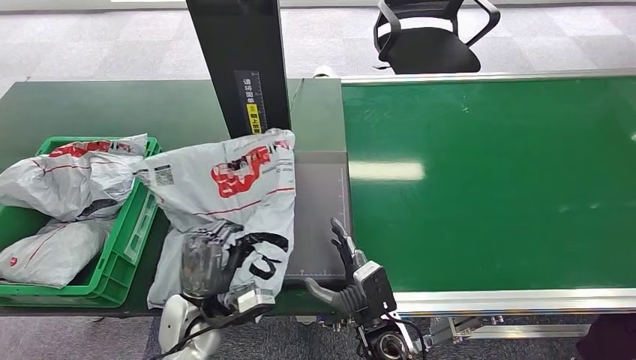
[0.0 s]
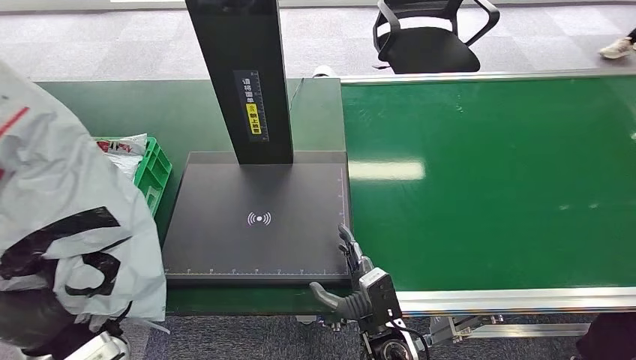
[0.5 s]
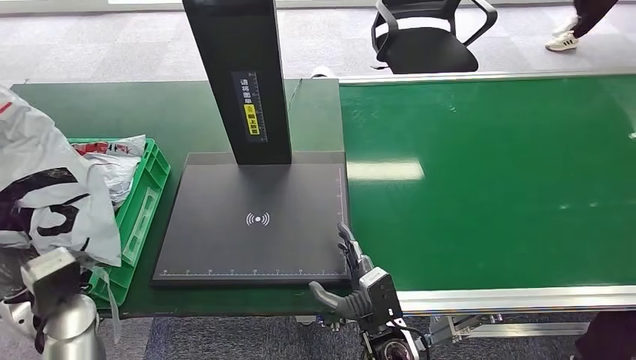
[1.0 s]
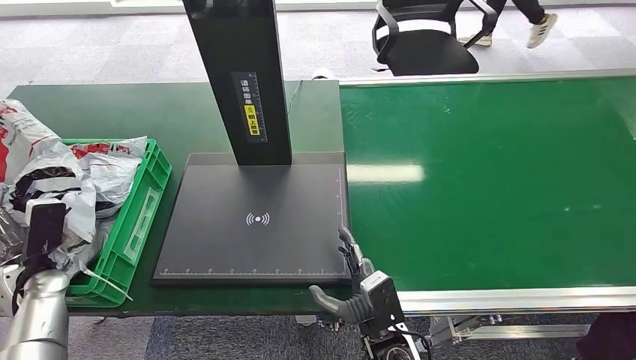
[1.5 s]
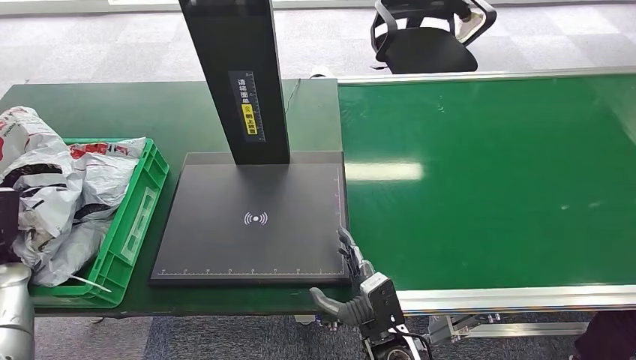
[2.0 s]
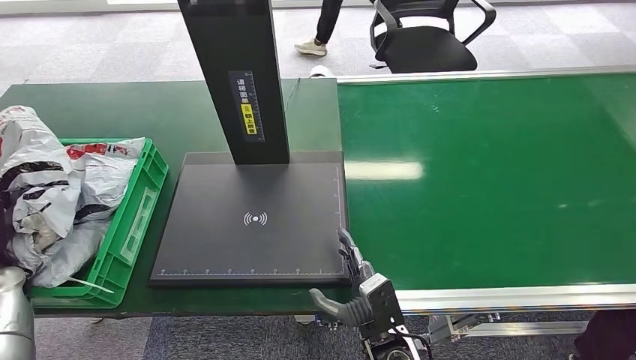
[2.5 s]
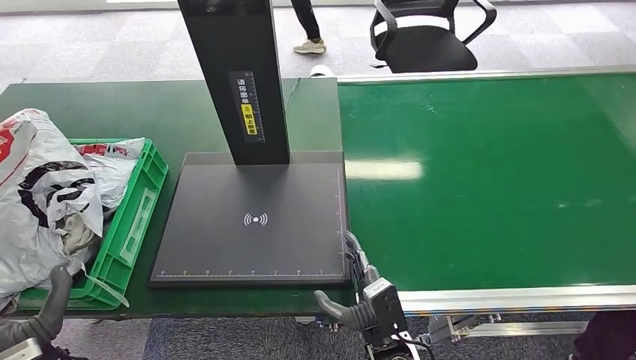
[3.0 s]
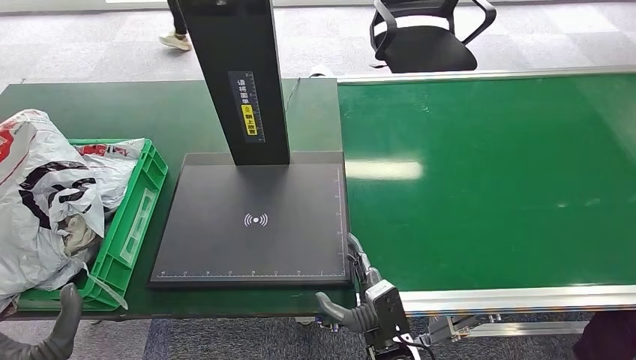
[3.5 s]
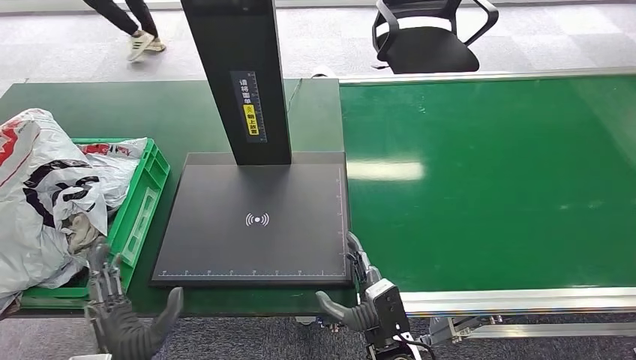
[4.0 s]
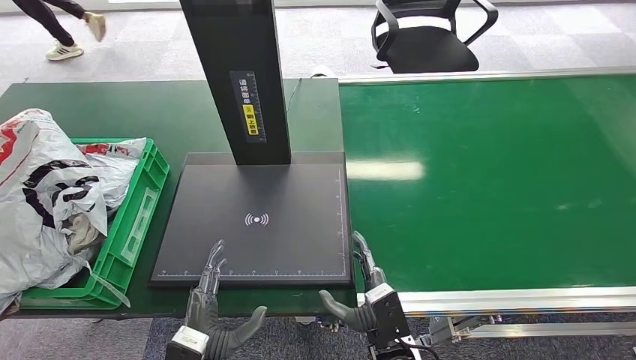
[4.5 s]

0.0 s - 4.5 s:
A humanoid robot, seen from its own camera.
Task of the whole recording: Weigh the package on the weighing device and place it in the left basket.
Step, 1.0 s - 4.5 s: Place the package into the parcel locker.
2.0 s - 4.5 s: The left hand goes approximately 40 cm to the right and backward.
